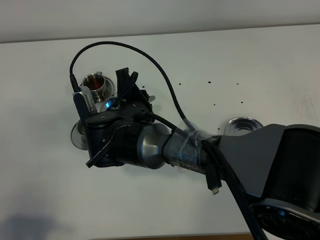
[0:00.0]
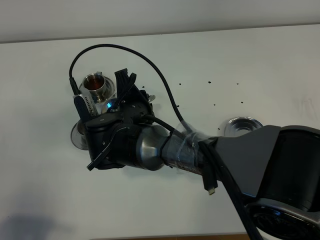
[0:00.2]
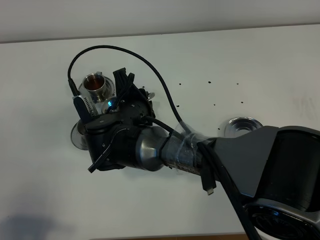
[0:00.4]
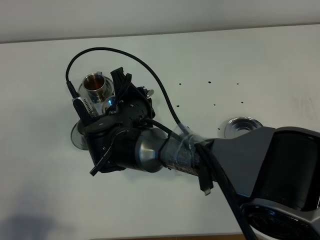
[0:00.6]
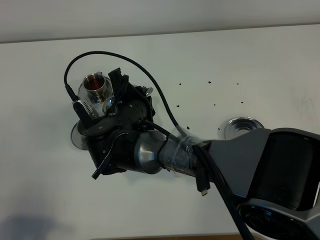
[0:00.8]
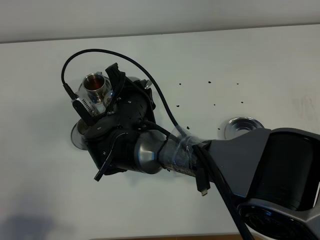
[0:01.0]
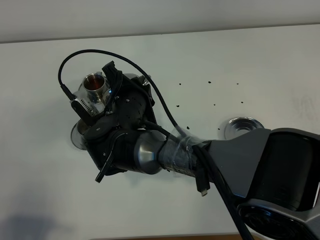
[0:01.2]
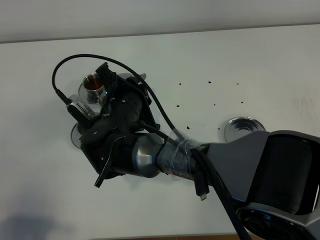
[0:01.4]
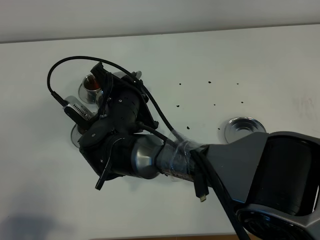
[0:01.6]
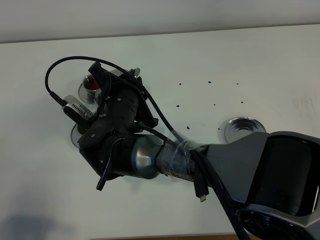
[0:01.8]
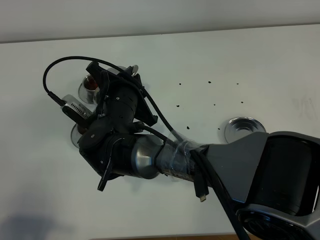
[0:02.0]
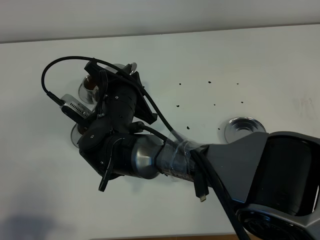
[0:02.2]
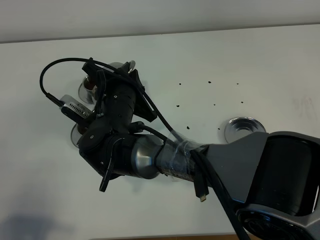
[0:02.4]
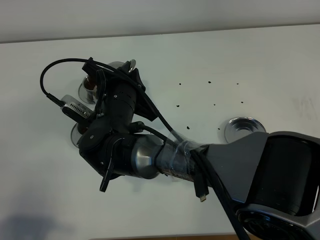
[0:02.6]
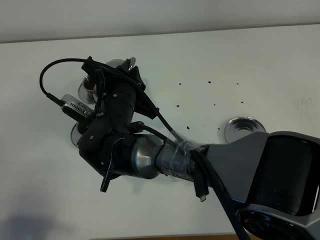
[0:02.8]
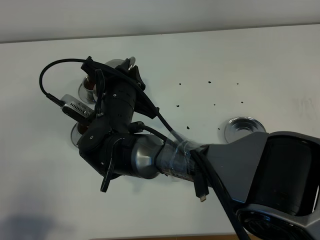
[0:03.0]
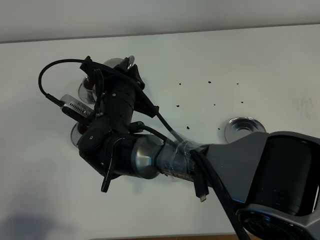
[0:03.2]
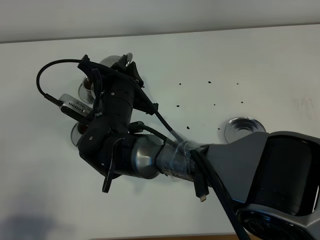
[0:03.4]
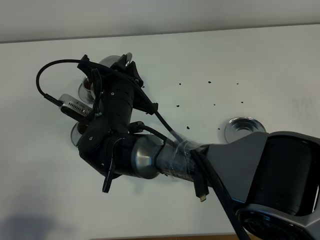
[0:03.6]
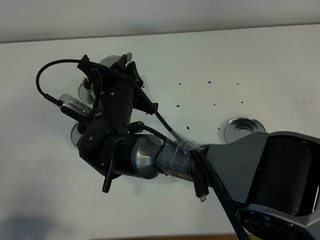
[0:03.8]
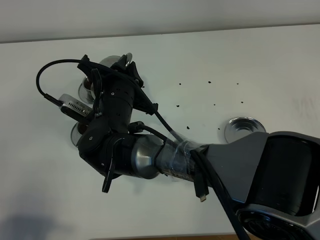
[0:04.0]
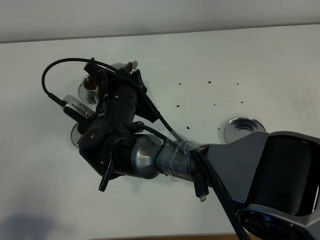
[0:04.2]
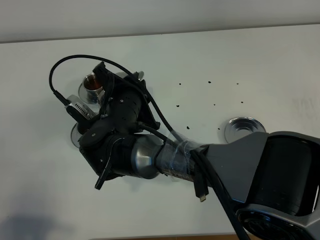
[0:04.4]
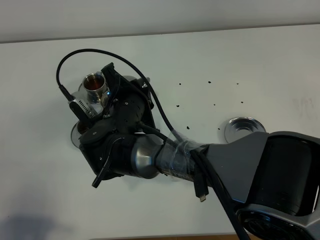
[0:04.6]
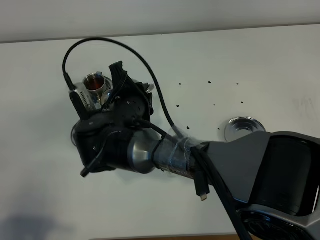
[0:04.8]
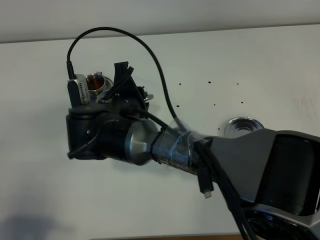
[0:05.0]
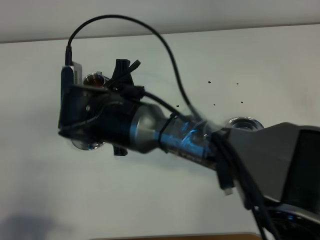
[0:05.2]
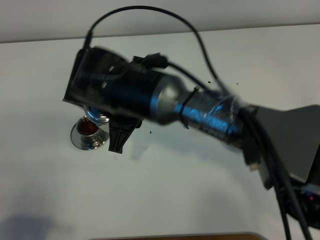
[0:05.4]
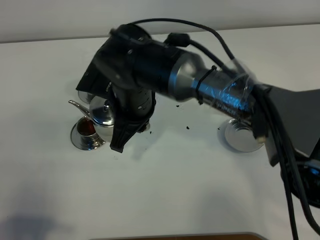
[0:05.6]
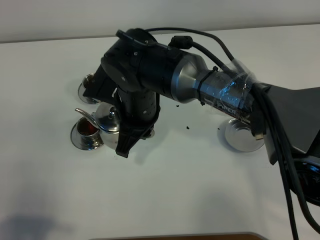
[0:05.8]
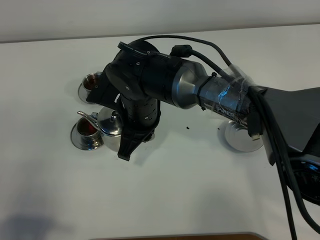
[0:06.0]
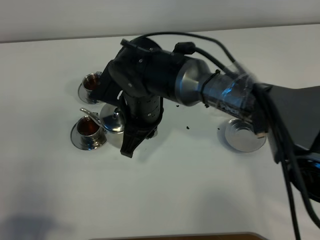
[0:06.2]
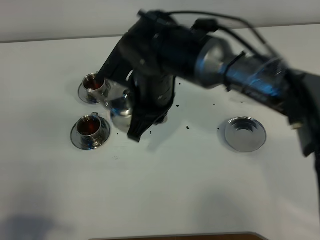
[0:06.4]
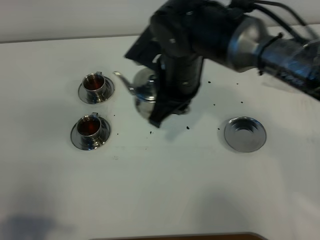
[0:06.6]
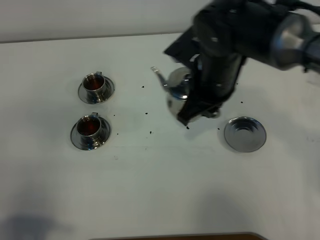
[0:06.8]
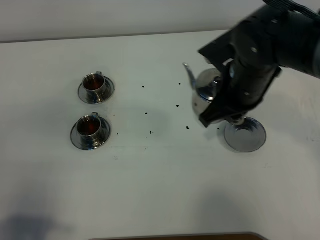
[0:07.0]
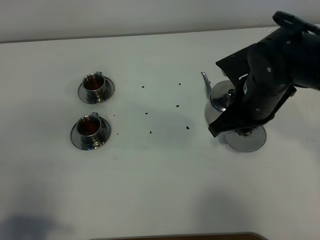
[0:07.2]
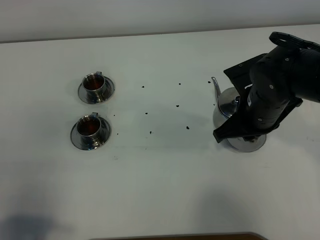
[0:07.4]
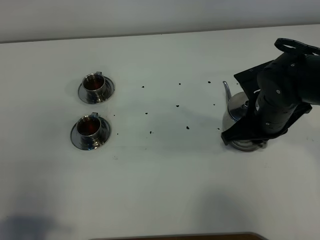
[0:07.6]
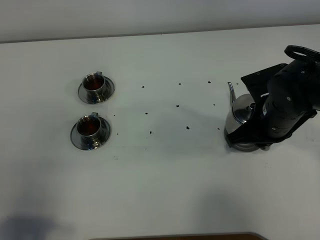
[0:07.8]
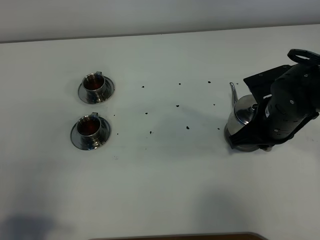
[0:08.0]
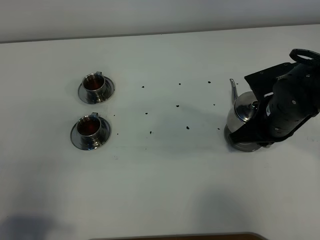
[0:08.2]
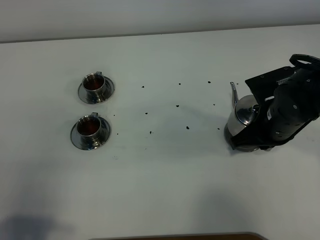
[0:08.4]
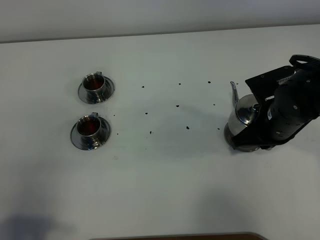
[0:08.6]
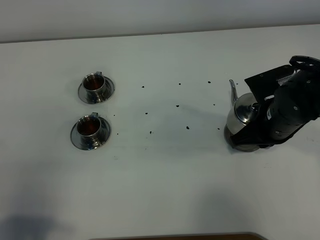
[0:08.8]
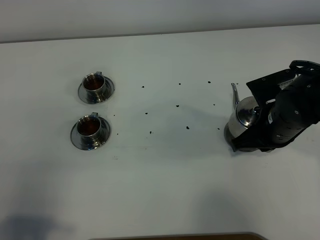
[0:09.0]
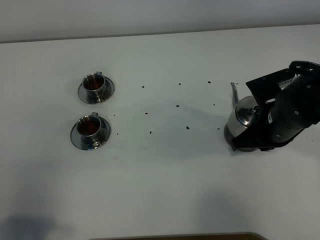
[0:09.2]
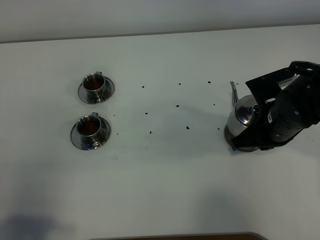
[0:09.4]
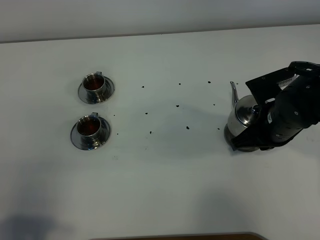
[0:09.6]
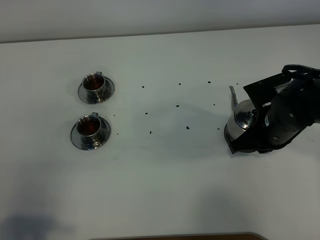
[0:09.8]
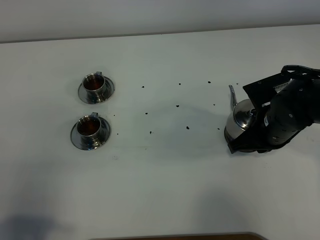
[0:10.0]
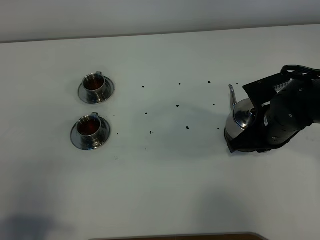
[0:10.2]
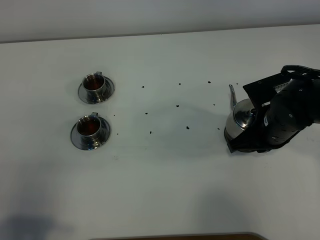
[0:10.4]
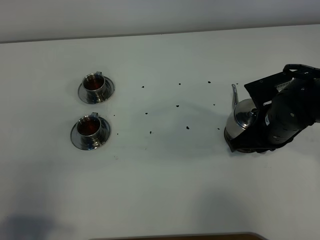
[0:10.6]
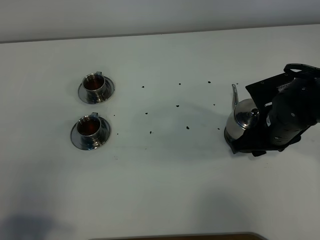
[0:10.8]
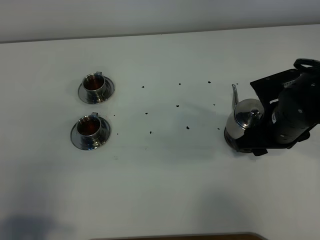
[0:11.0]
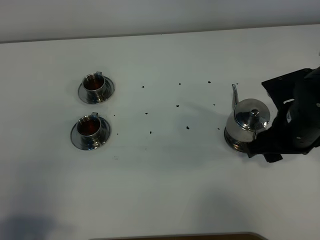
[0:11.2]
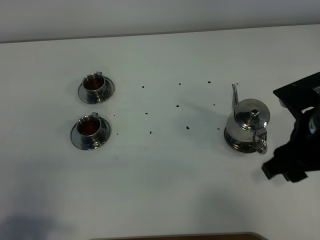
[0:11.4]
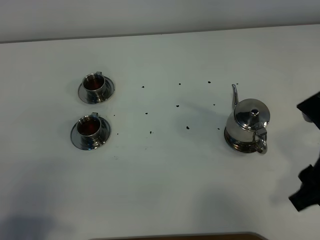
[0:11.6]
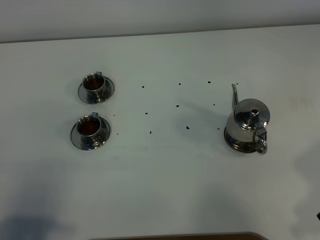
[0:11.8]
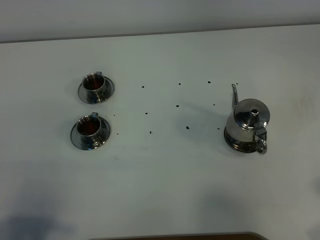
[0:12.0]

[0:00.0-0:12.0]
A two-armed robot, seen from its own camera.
Task of the whole recording: grasp the stainless steel teapot and pour the tea into the two stainless steel teacups one by one, put the stainless steel teapot back in its original place.
Step, 0.0 to 5.4 s: Pour tea into the teacup with the right gripper.
1.6 to 4.4 s: The grippers move only a little.
6.0 to 7.6 s: The right gripper goes approximately 20 cm to the right.
7.6 to 10.4 s: The grippers stay close to where they were, moving slightly.
10.4 to 12.0 s: The right gripper shifts approximately 30 cm backward, upward and to the right, and opens.

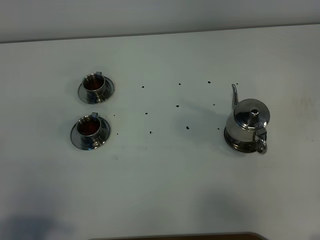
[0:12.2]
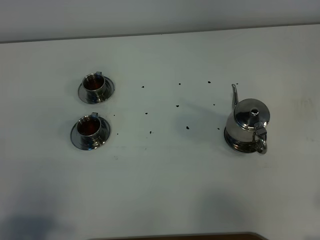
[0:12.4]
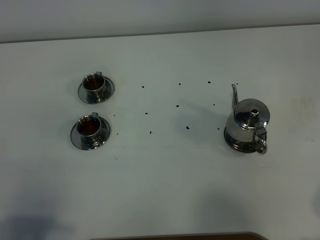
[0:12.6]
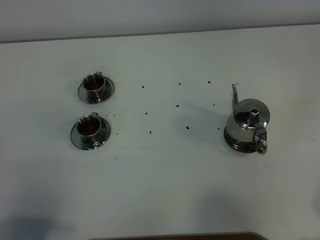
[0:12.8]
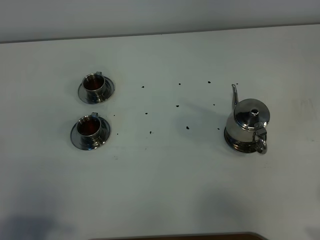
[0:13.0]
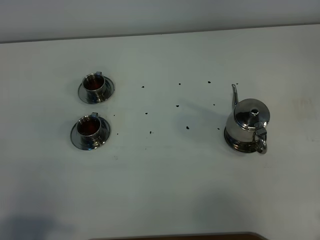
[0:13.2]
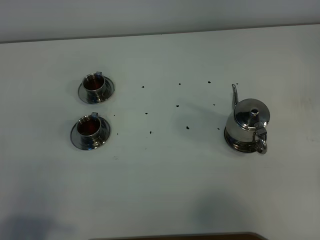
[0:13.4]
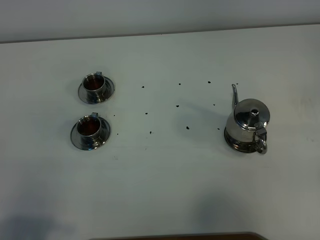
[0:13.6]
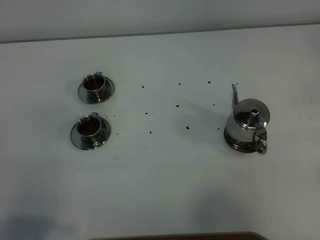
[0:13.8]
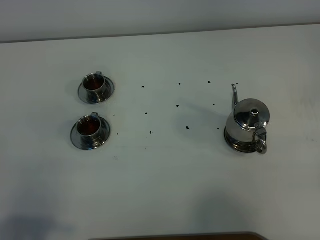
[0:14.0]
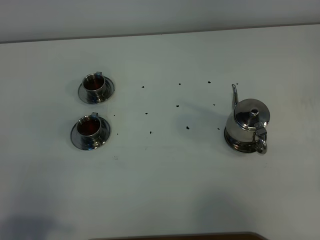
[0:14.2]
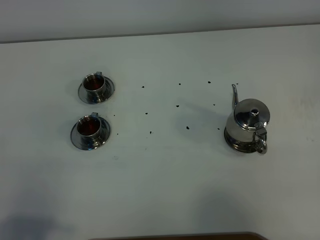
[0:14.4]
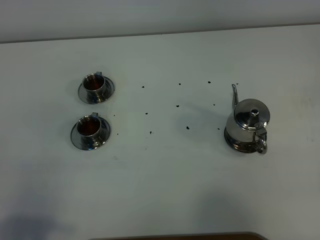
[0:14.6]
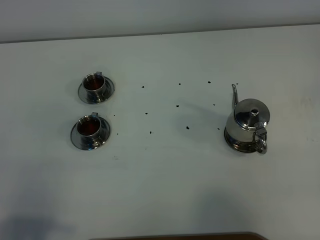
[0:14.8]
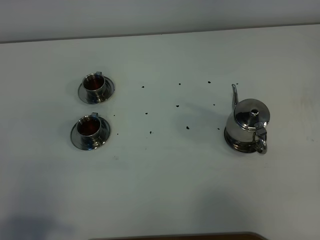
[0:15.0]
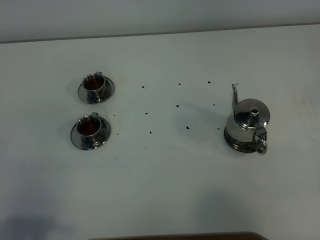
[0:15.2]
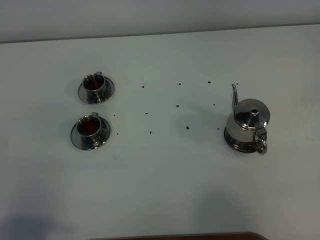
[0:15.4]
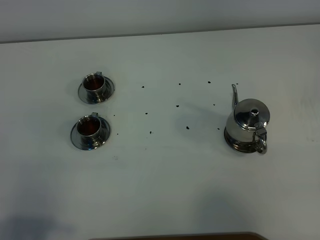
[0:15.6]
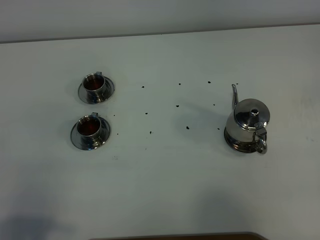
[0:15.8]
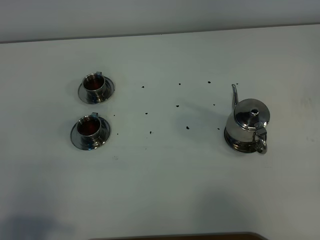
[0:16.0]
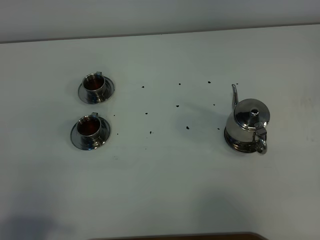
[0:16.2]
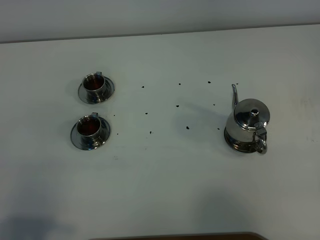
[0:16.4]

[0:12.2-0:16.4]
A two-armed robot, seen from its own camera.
Task of the whole recording: grasp the stainless steel teapot and pour the tea into the two stainless steel teacups one by one, put the stainless steel teapot back in its original place.
15.0 to 16.4 s: Neither gripper changes place.

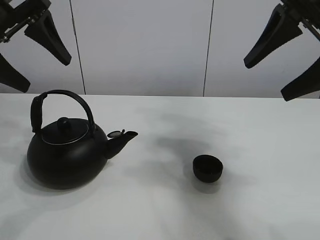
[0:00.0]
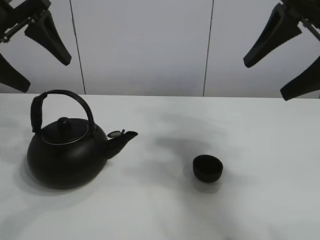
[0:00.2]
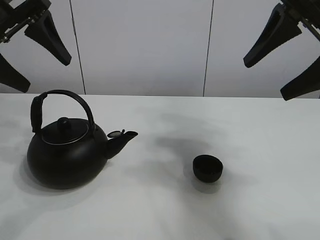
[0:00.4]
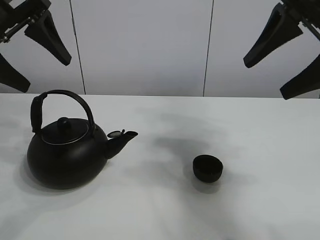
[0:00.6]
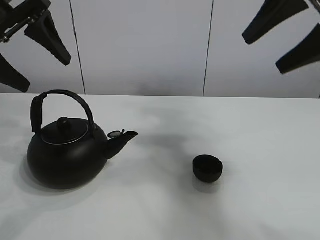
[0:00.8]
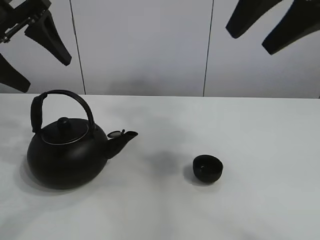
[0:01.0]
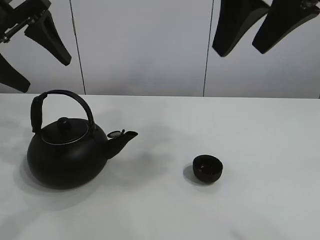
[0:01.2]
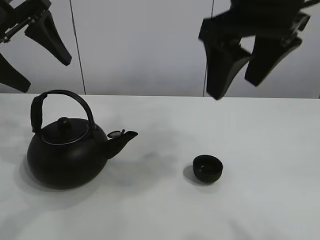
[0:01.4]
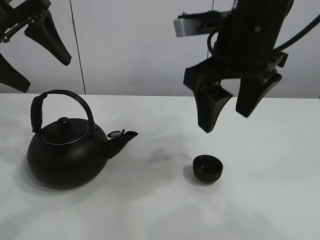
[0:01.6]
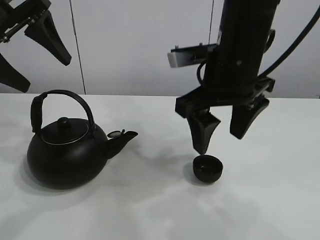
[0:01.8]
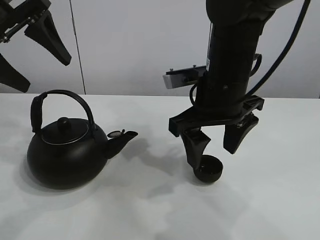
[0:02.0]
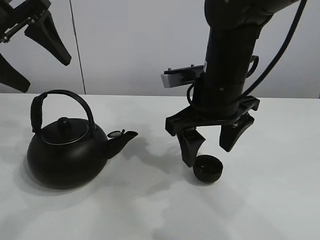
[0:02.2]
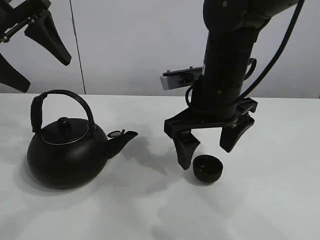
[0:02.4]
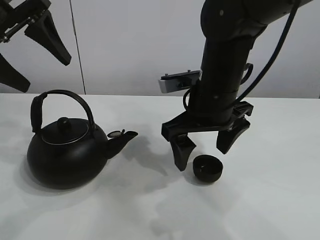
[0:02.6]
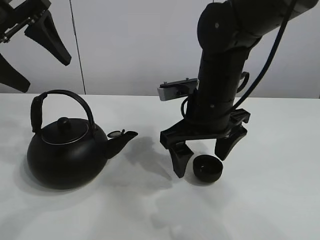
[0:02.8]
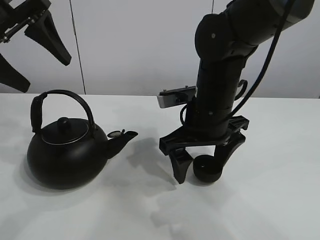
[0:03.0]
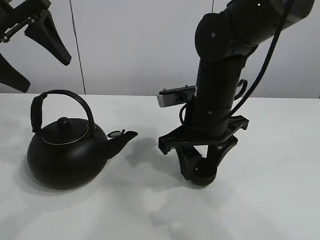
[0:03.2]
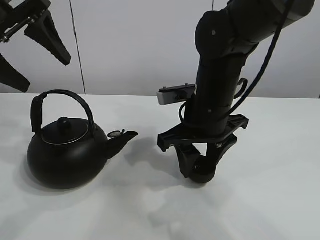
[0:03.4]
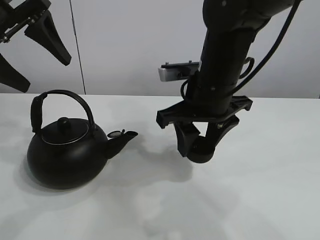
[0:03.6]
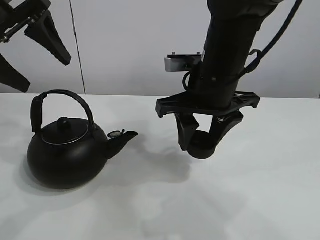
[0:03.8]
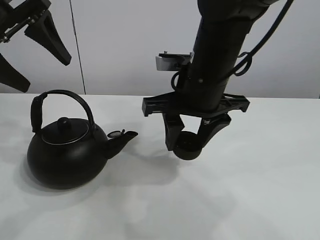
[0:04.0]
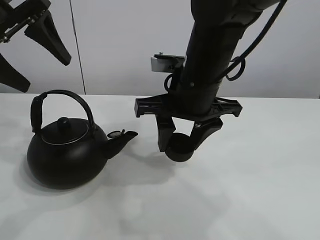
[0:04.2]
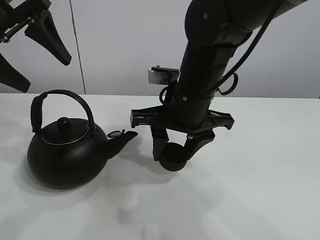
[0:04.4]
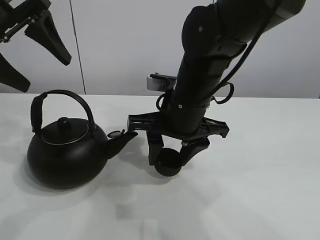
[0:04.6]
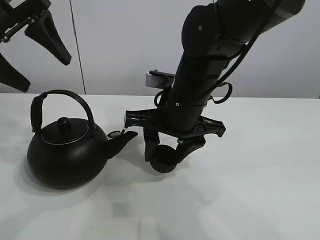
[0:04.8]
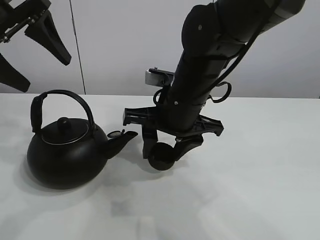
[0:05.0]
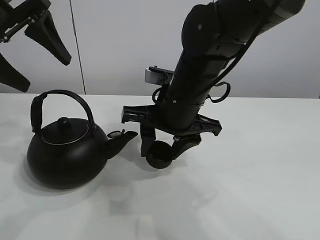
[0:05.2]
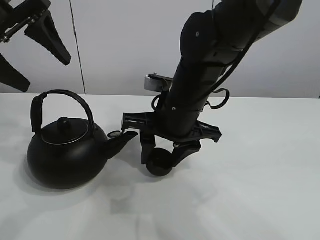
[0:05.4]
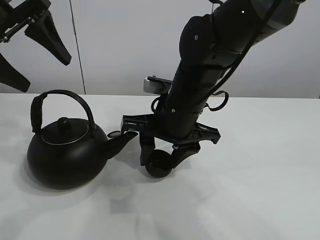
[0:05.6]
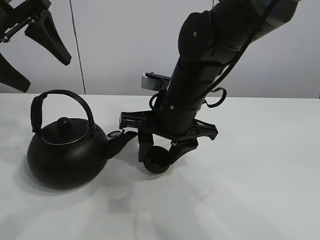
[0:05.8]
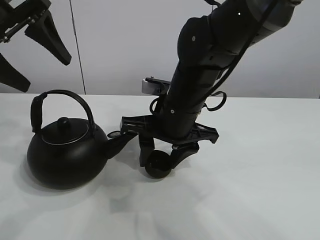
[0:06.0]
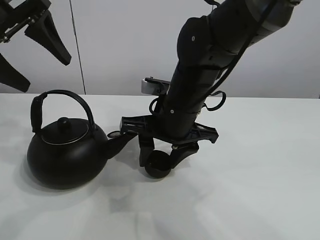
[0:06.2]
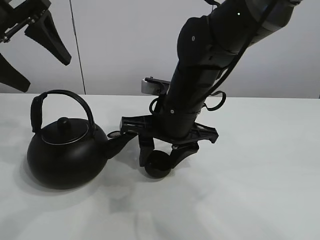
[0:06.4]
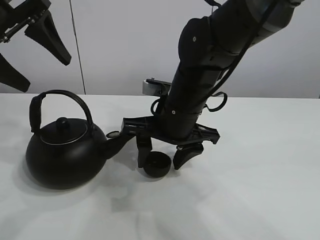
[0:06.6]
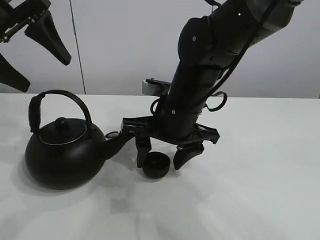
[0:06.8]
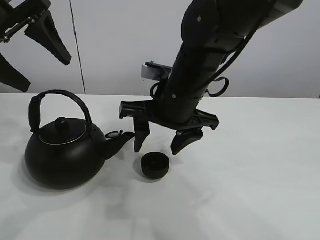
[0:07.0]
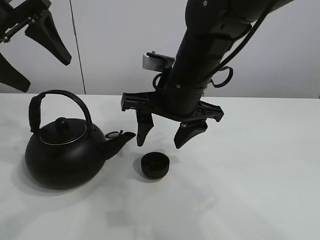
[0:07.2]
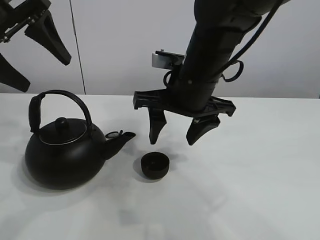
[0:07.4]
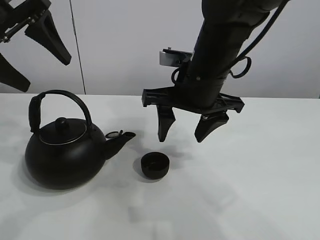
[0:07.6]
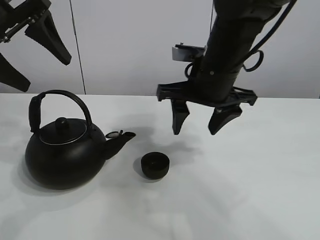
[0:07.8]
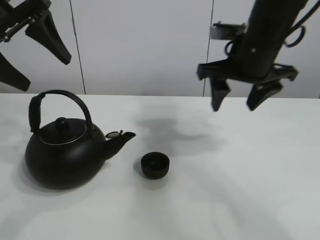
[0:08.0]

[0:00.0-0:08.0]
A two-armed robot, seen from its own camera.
Task of the whole recording: pour tea into the teacup.
Step, 0.0 to 3.2 s: Pick up the teacup with the right gripper.
Step, 3.6 to 6.8 s: Place the teacup in the center of view with the right gripper.
1.6 to 3.2 s: The right gripper goes some 15 cm downward, and closes up.
4.8 to 6.4 s: There are only small adjustments of the grippers.
6.4 to 8.0 s: The right gripper heads to the right and upward, covering roughly 15 cm, and opens.
